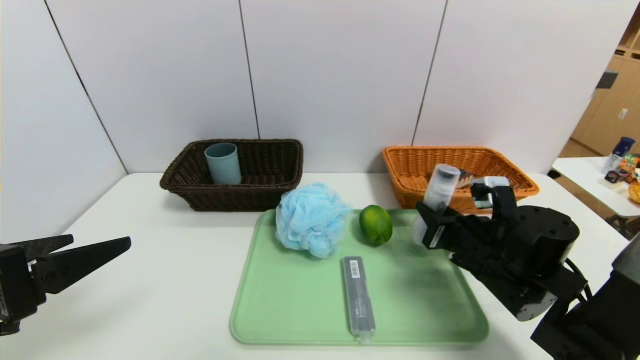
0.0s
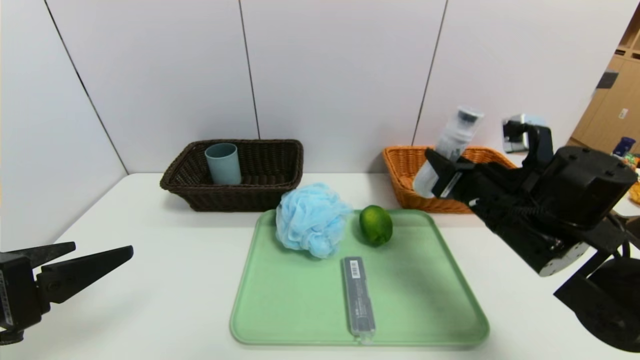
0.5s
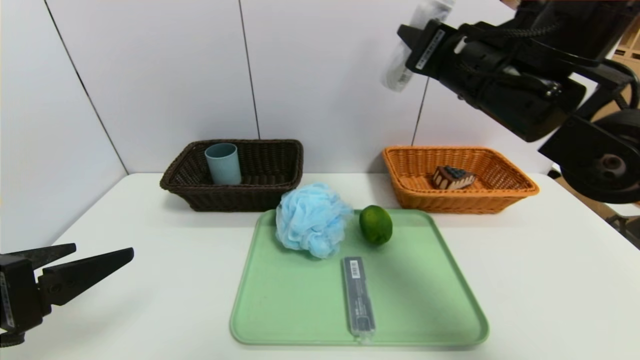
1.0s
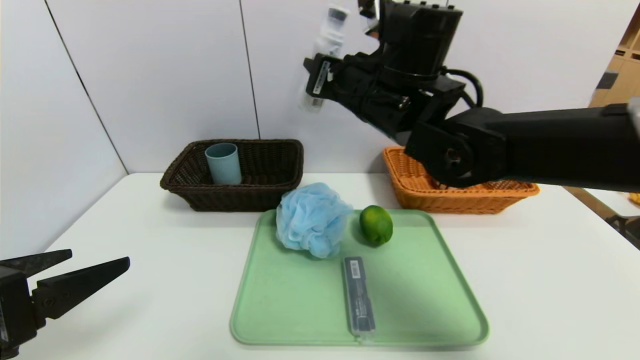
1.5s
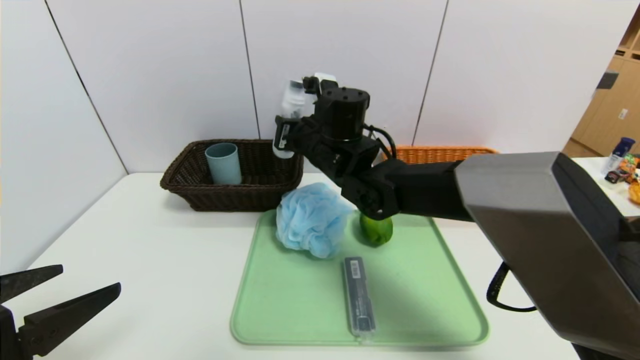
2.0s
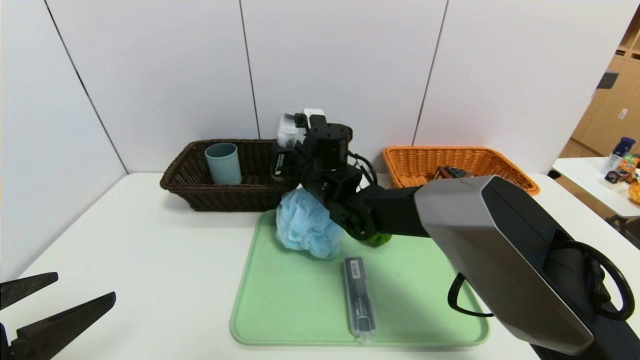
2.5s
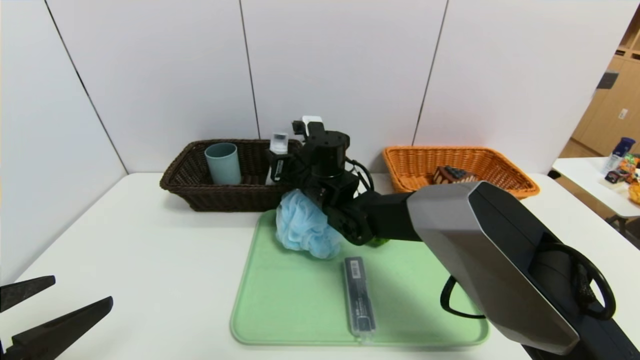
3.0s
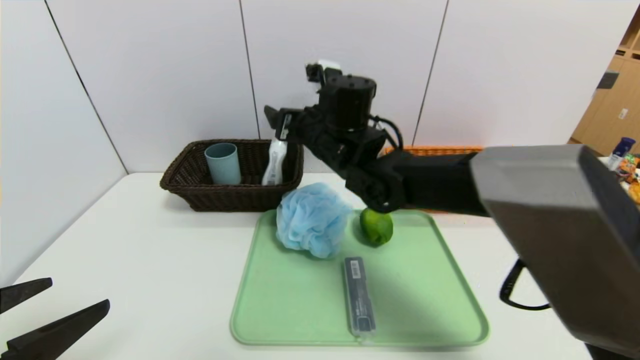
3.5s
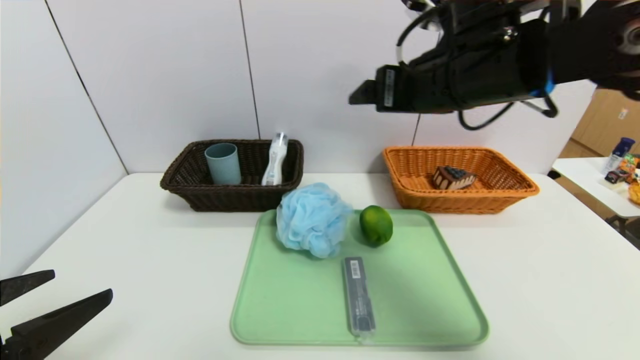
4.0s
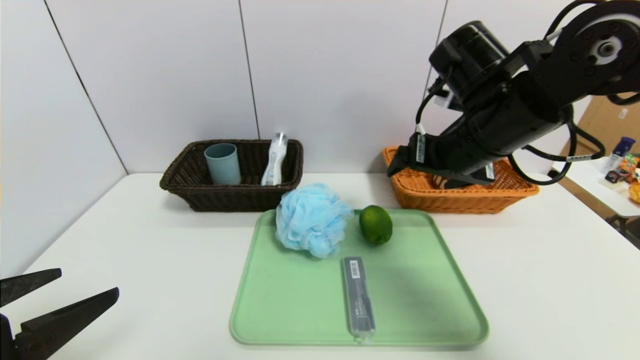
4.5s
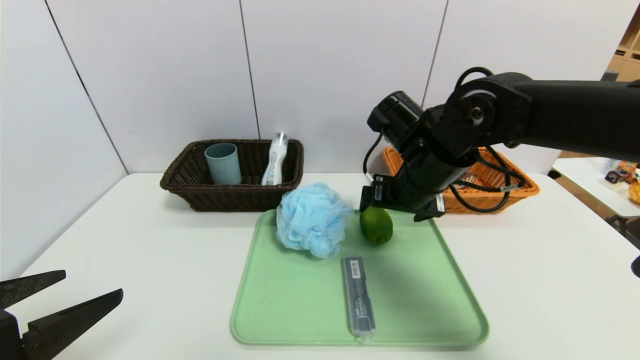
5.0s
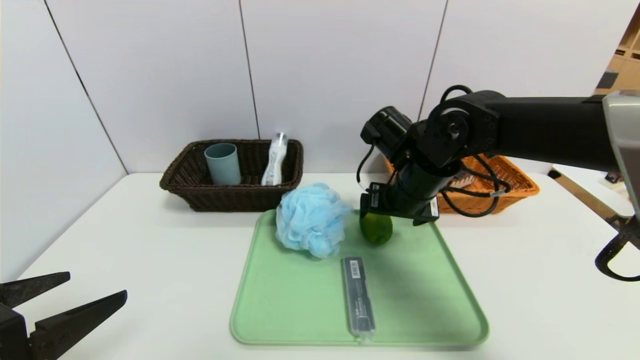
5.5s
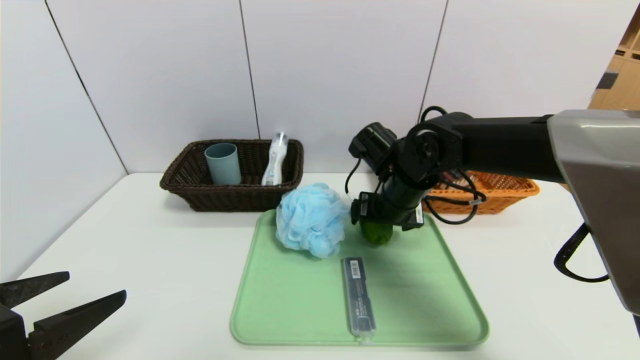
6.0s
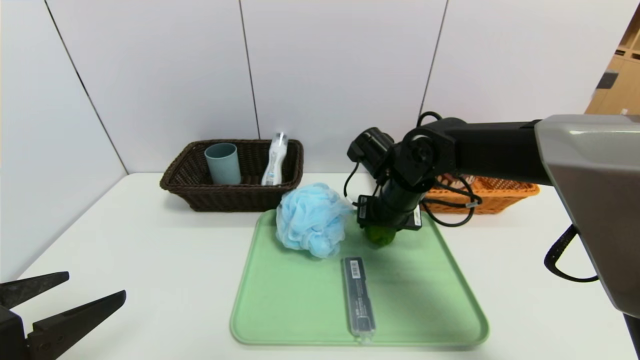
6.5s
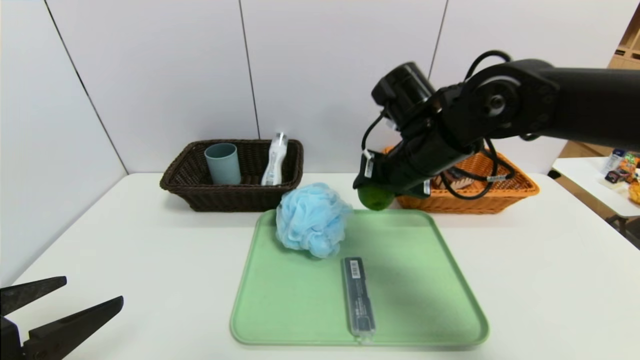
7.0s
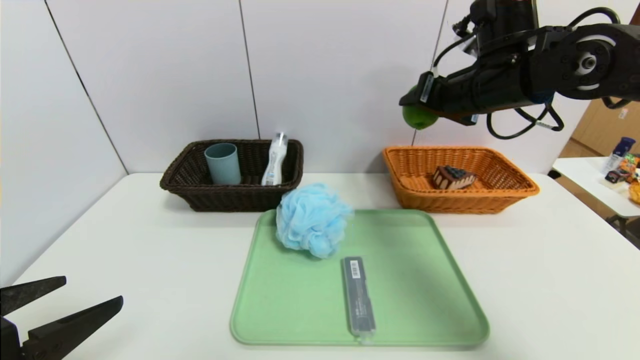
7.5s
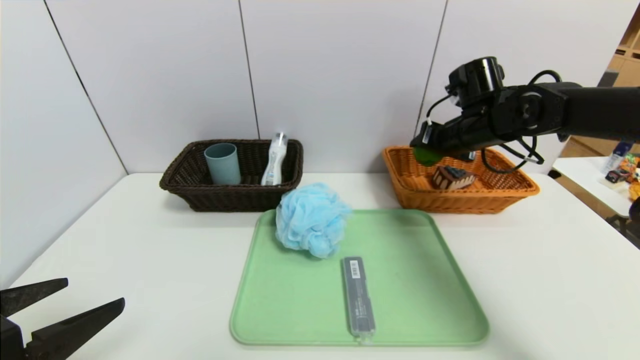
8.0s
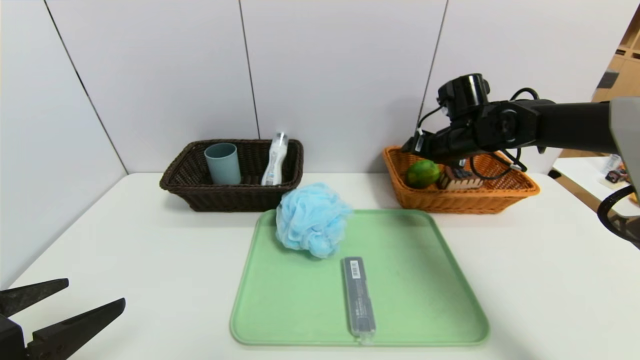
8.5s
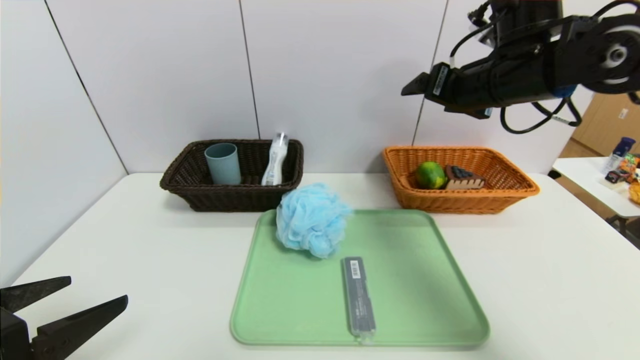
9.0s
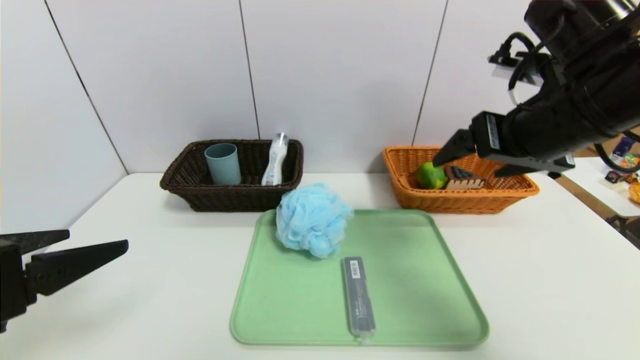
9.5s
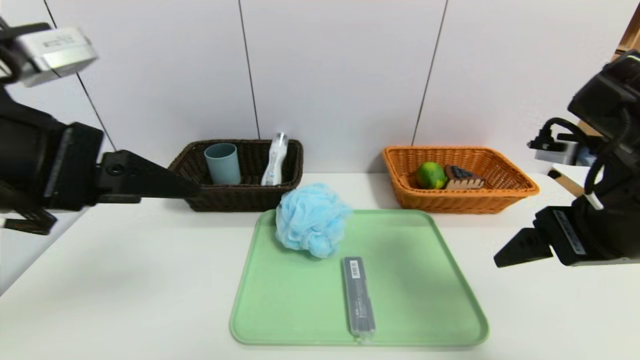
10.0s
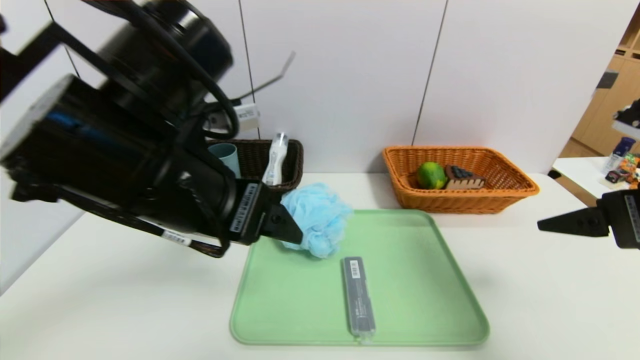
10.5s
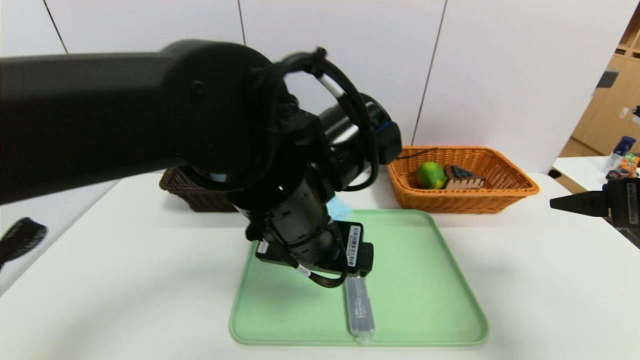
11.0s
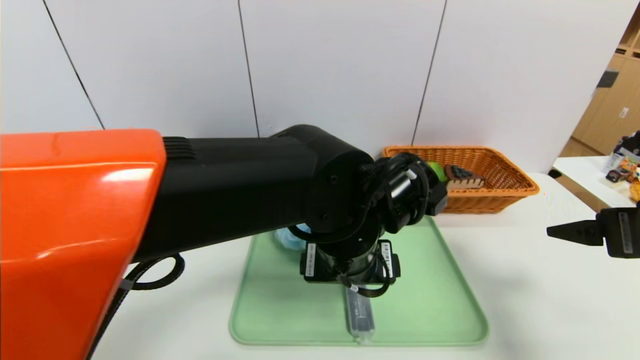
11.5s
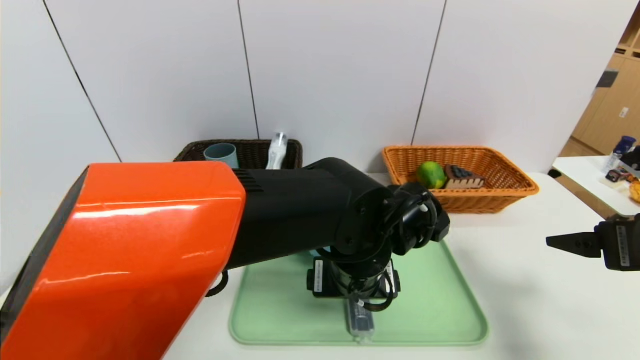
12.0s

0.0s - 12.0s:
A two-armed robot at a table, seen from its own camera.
Task of the whole recording: place the food in the right basket with the right gripper, and place the non food items in the left basket with the left gripper.
Step, 3.5s - 8.5s: Grasp the green lemon and put it in the right basket.
0.0s - 2.0s: The right gripper shifts approximately 25 cm to the left, forward and upward.
2.0s - 4.0s: The right gripper heads to the right, upward and backward, covering about 20 cm, and opens.
4.0s - 6.0s: The right gripper travels downward by approximately 15 cm.
6.0s - 8.0s: The right gripper moves to the right, forward and upward, roughly 15 cm, and closes its fingers.
8.0s - 10.0s: The right gripper moves backward, some 25 cm, and opens its fingers. Meanwhile the left gripper shifts roughly 15 cm upward, forward and to the right.
10.0s - 12.0s: The left gripper travels to the right and downward by about 30 cm. The right gripper moves to the right and downward, approximately 10 cm.

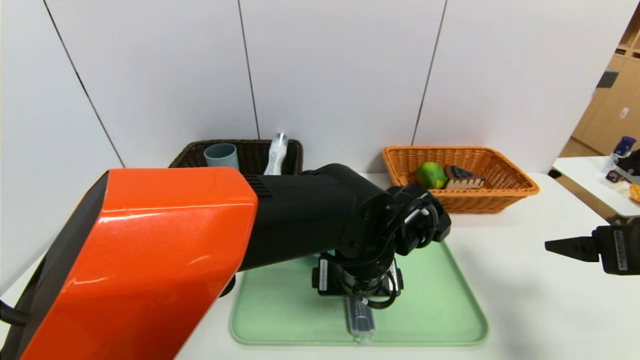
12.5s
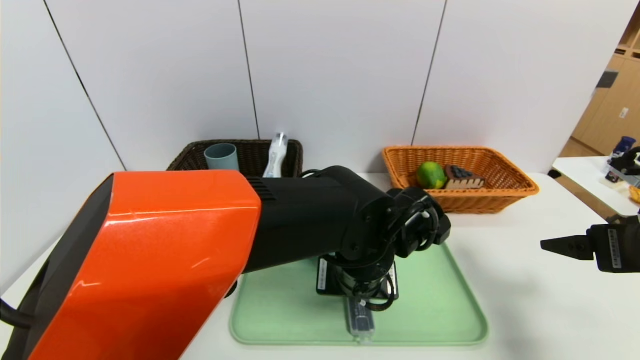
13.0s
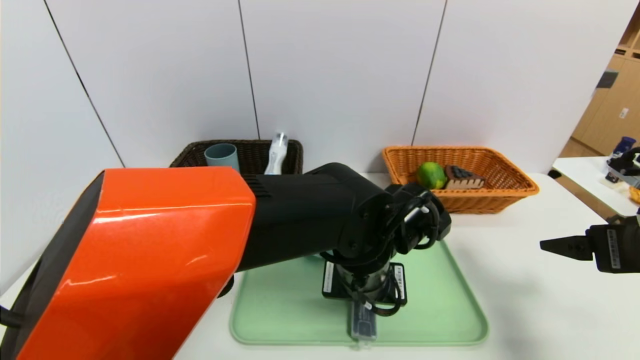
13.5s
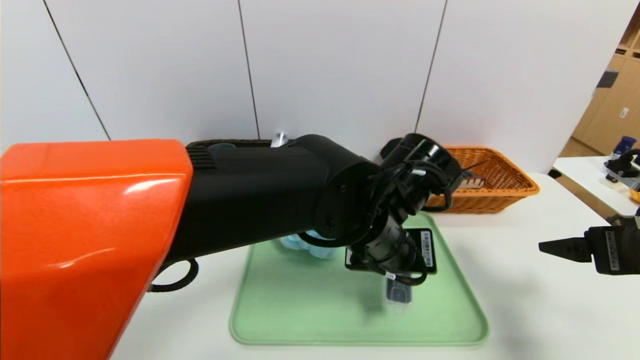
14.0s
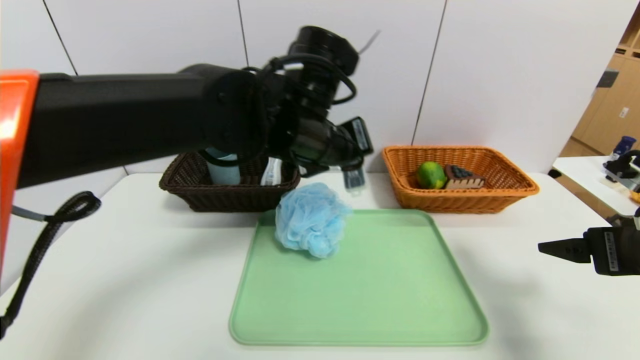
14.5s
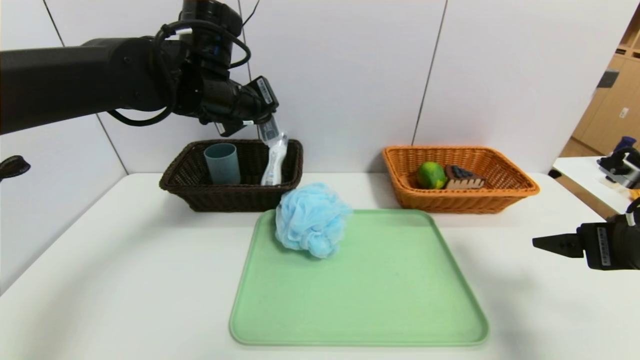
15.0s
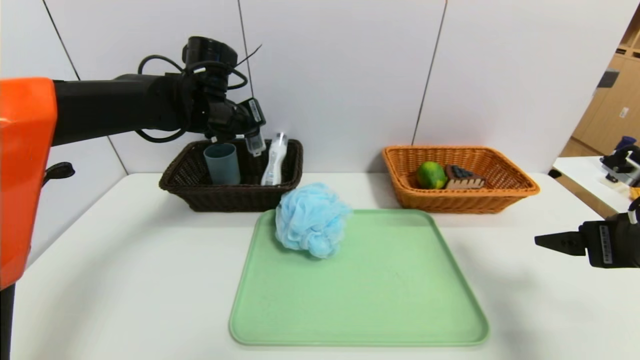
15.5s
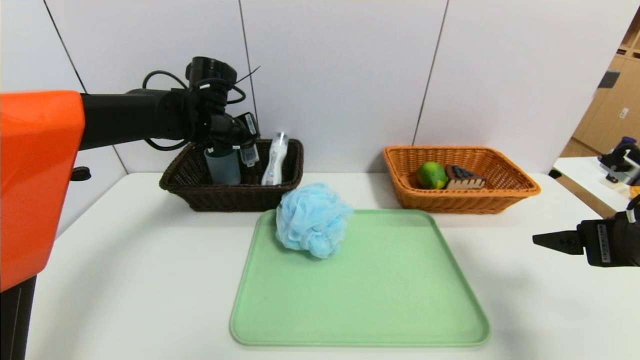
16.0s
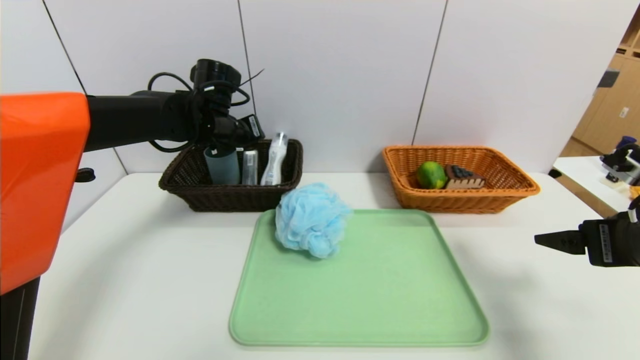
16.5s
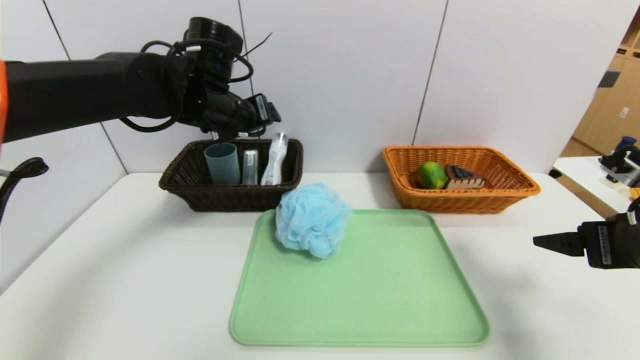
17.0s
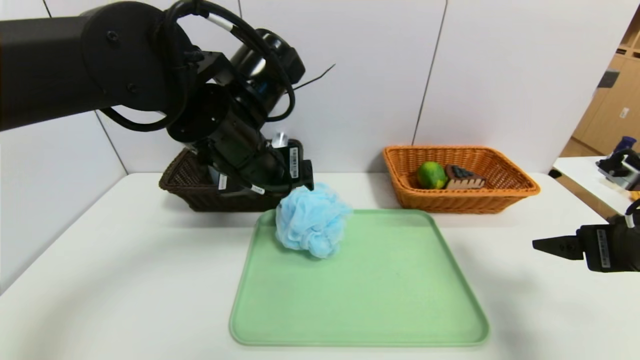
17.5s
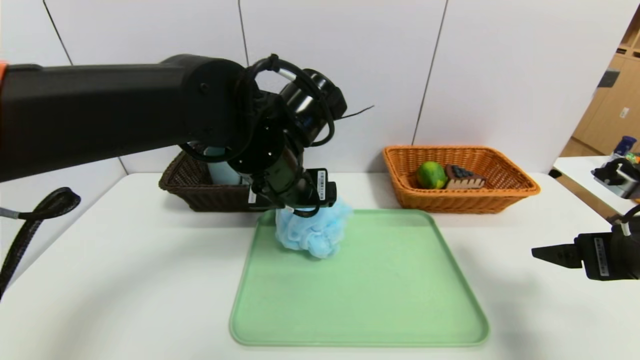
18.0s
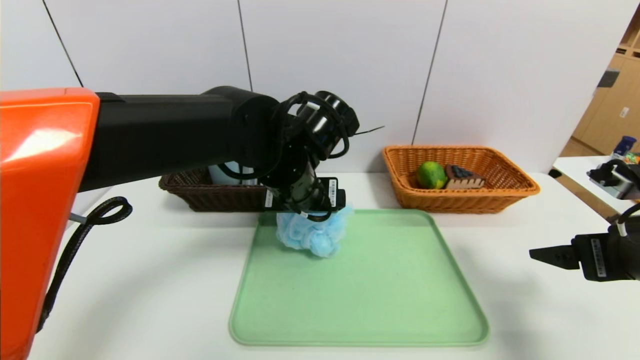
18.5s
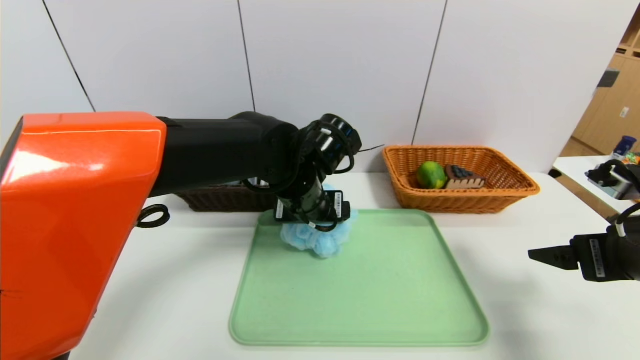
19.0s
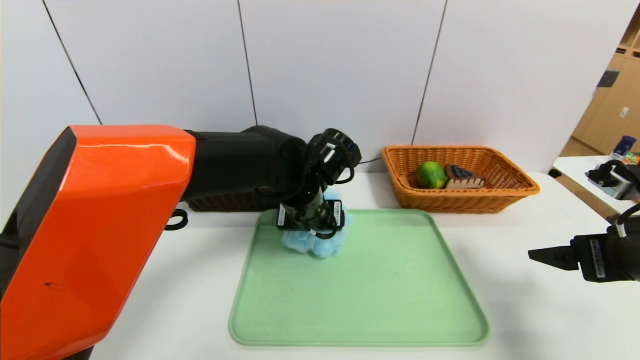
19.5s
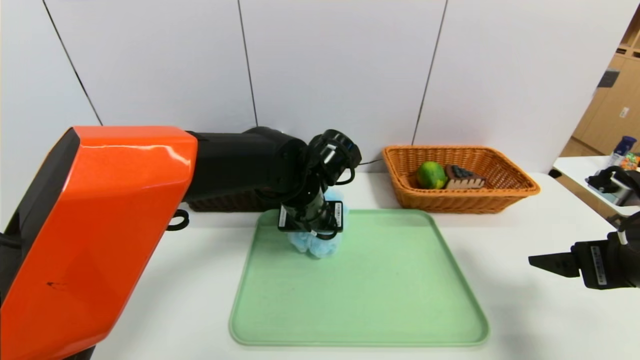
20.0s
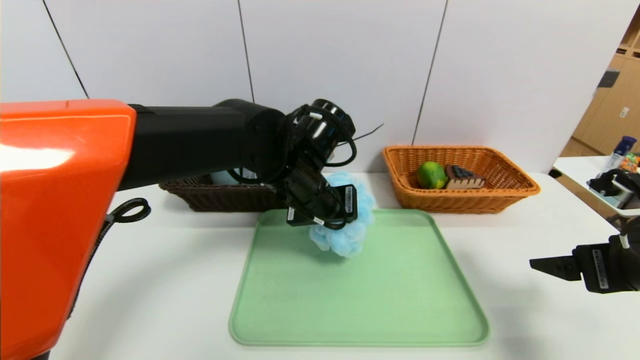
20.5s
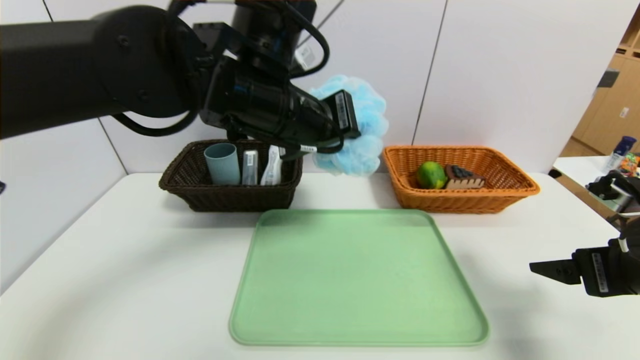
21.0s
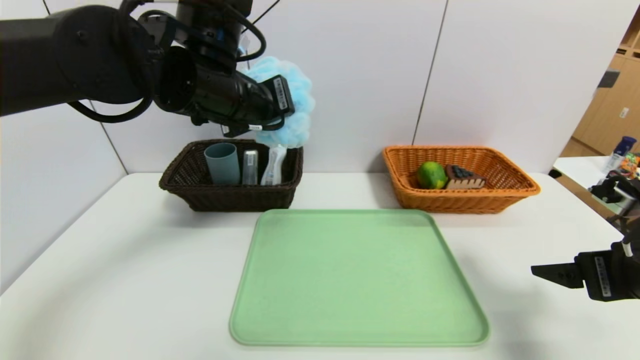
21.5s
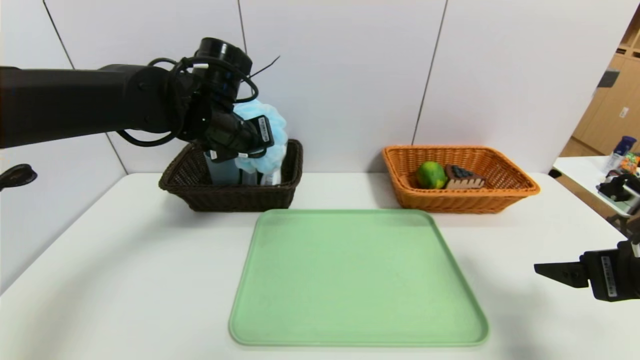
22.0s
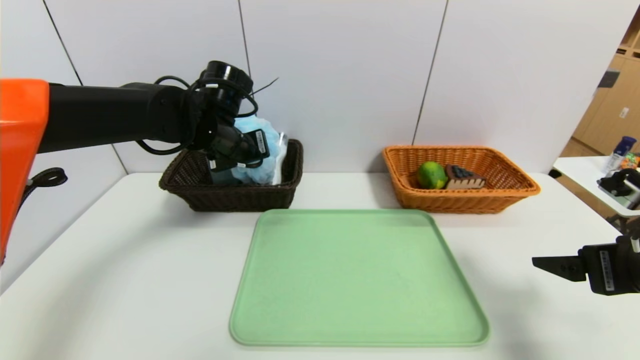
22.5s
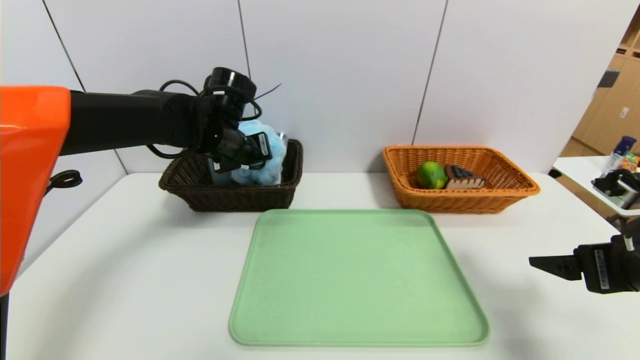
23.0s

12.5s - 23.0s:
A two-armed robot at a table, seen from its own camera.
Task of the whole recording: place the food in the right basket with the right gripper, and place the non food items in the left basket with the left gripper.
Step, 12.5s - 16.5s: Grasp the compass and put it in the left basket.
12.5s - 14.5s: The left gripper heads upward, to the left and forward, covering some 15 cm, and closes up.
14.5s - 16.5s: The left gripper shifts some 20 cm to the left and forward, and opens.
16.5s - 19.0s: The left gripper moves to the right and backward, some 20 cm, and opens.
19.0s - 21.0s: The left gripper travels upward by some 15 cm, and closes up.
21.0s - 23.0s: The left gripper travels forward, downward and to the left by approximately 15 cm, and opens.
